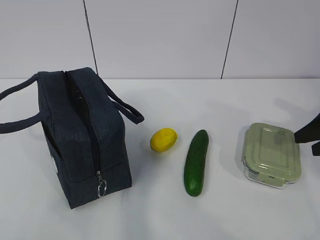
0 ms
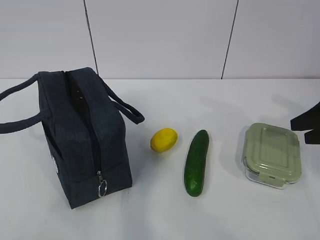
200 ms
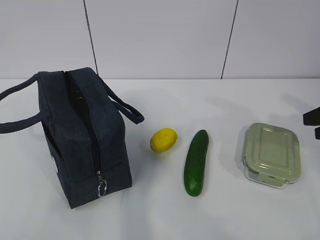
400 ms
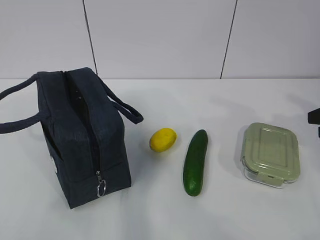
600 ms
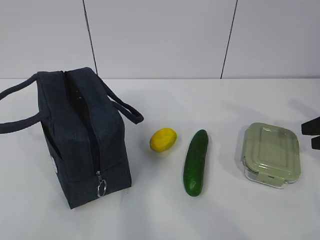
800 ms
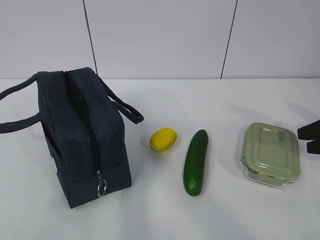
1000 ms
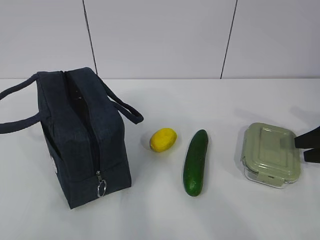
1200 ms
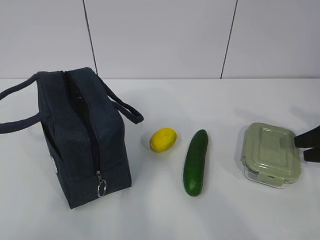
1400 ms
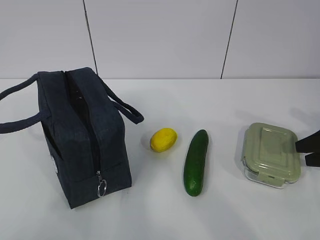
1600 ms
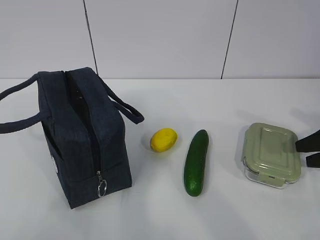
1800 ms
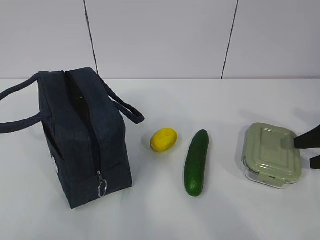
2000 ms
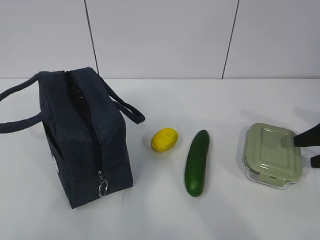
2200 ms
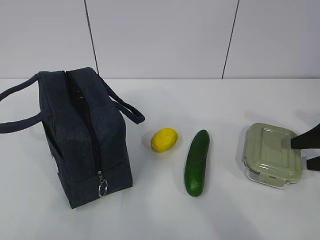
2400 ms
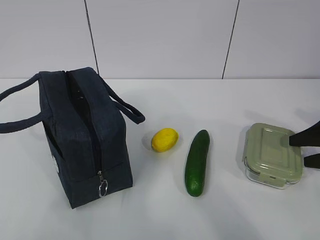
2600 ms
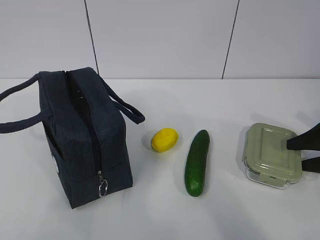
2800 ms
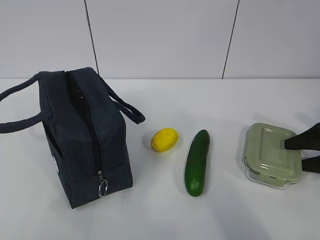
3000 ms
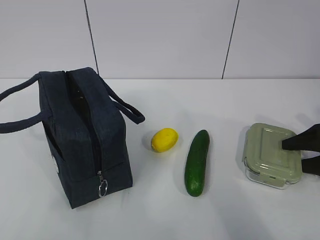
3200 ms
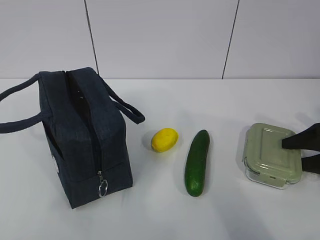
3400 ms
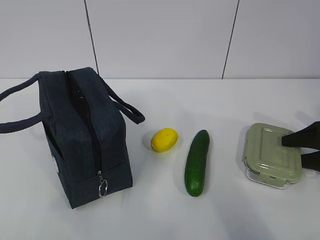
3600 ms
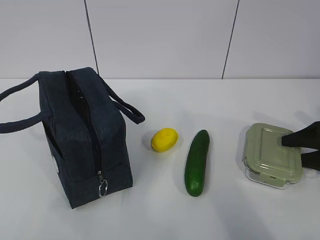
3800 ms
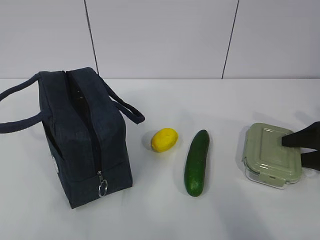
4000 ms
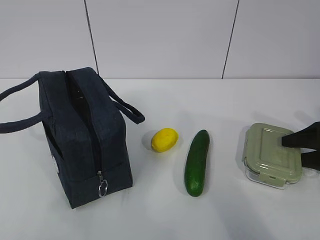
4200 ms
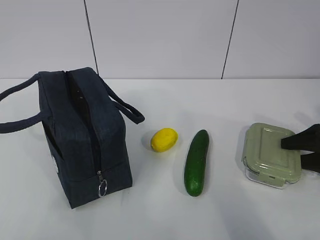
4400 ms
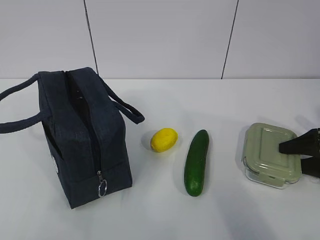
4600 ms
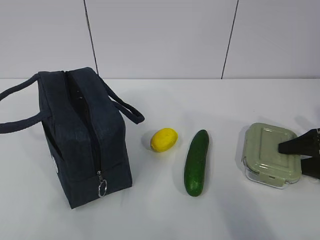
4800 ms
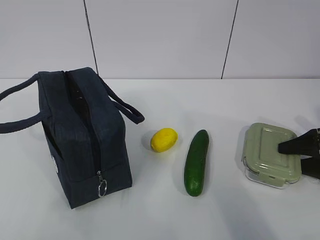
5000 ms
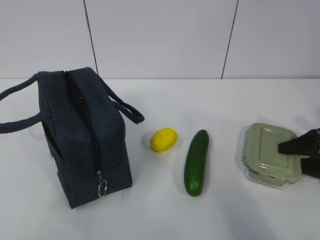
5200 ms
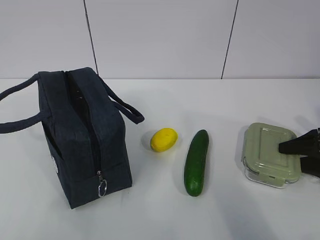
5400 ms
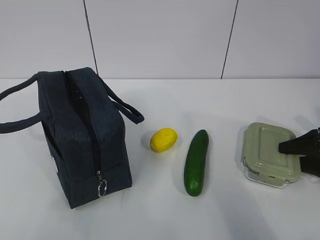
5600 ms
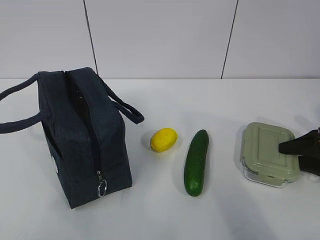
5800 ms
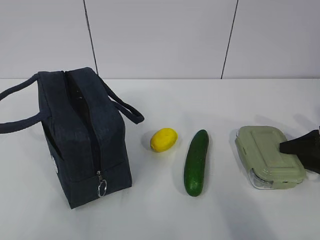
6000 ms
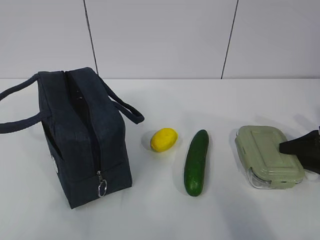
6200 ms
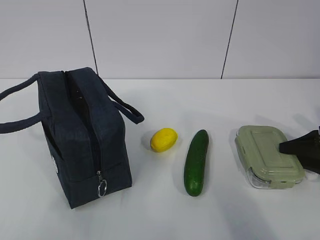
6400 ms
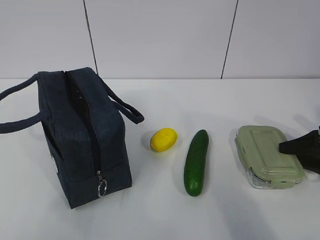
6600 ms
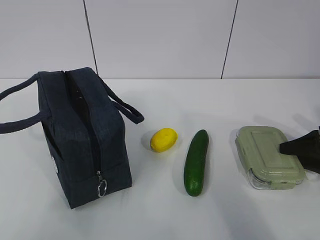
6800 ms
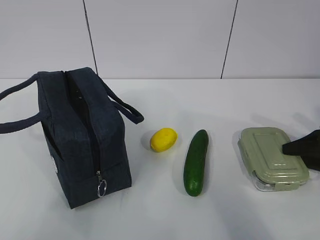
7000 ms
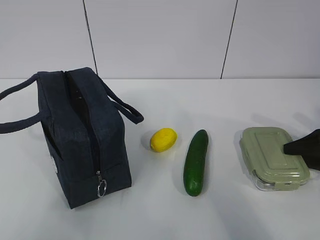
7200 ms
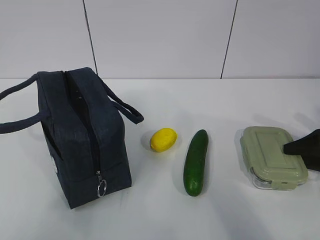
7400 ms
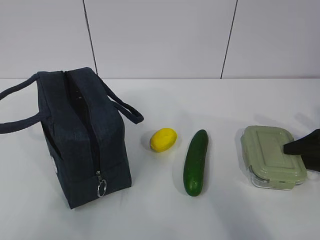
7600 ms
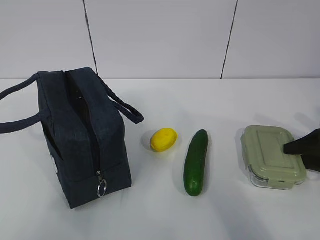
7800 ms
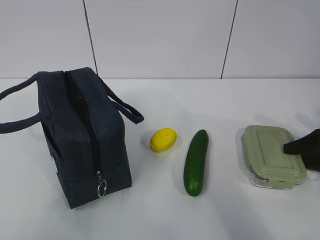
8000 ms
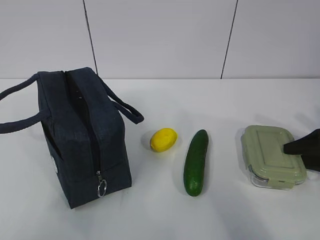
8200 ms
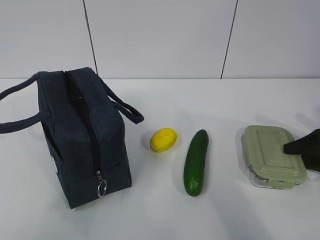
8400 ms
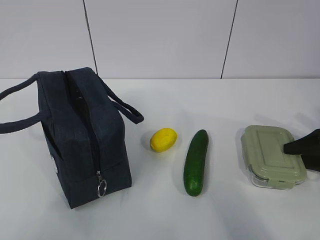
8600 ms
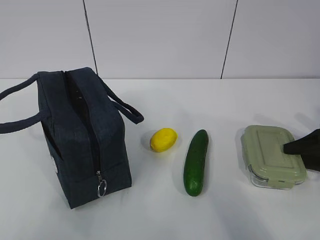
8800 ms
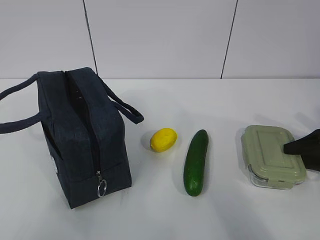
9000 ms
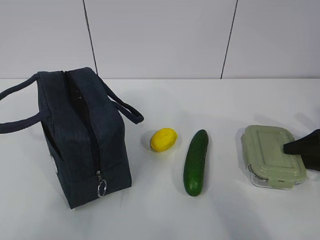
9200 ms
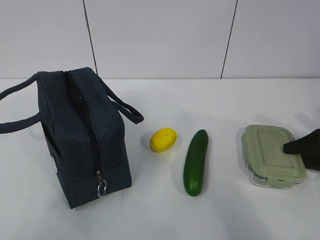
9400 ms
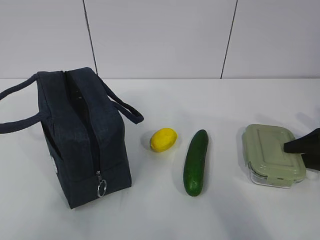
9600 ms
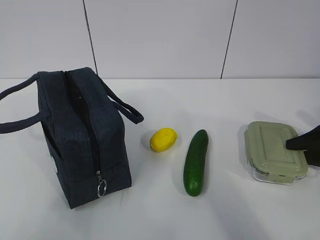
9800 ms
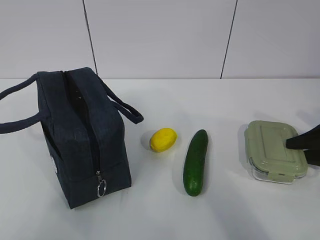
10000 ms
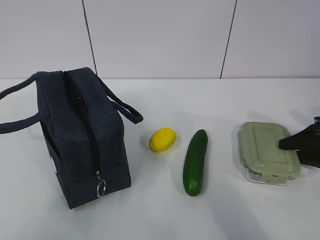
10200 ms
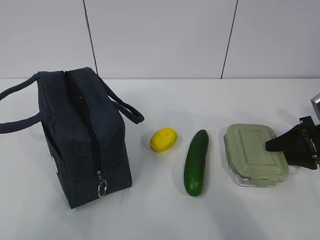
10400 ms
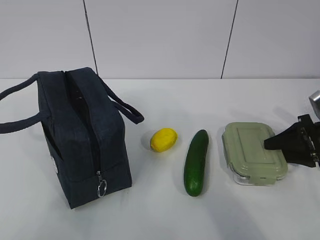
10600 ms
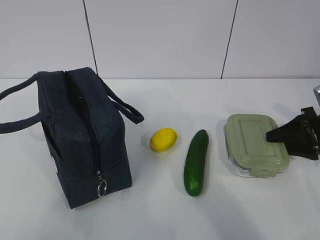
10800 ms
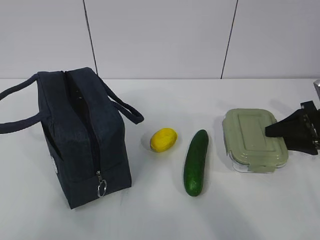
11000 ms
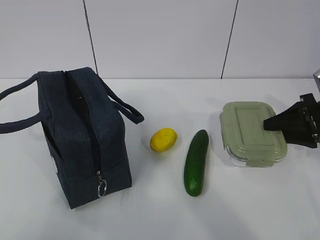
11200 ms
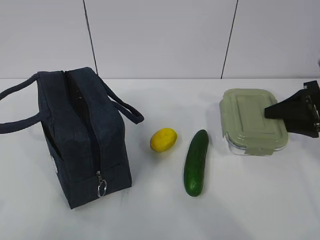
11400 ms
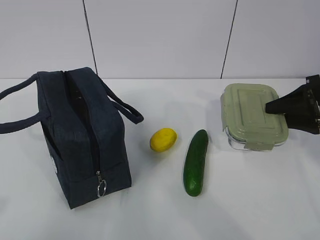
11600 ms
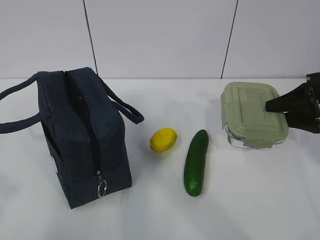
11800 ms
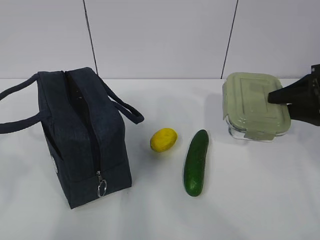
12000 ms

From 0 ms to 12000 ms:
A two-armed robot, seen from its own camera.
Step, from 0 ms to 7800 ms: Grab the lunch box with your right hand.
From 0 ms to 1600 ms: The right gripper is displaced downward by approximately 5 cm.
From 1600 ms to 3000 ms: The grippers move only a little.
From 4400 ms to 6000 ms: Both grippers stay put.
From 6000 ms to 7600 ms: The grippers make only small movements.
From 7600 ms to 9000 ms: Neither gripper changes place.
From 9000 ms to 10400 ms: The grippers stay close to where they were, moving slightly.
From 10400 ms to 12000 ms: The left gripper is displaced forward by roughly 5 cm. The right gripper goes about 10 cm upward.

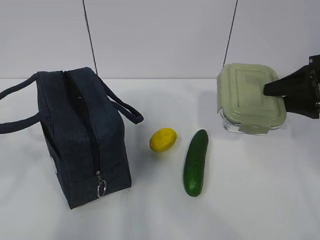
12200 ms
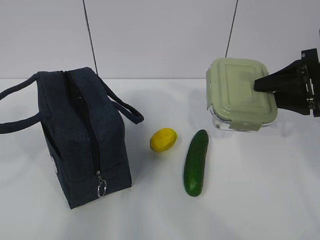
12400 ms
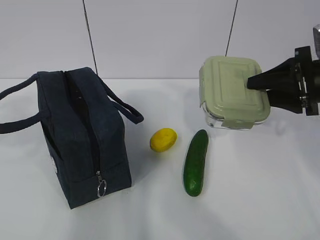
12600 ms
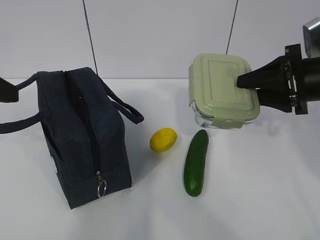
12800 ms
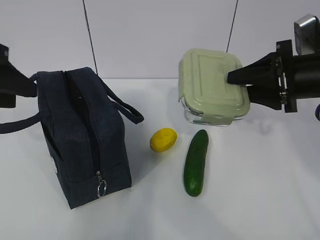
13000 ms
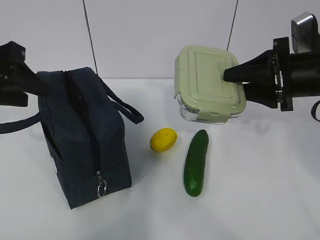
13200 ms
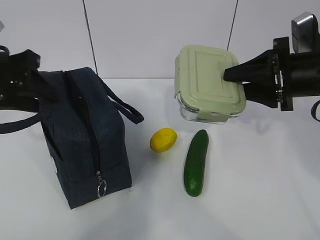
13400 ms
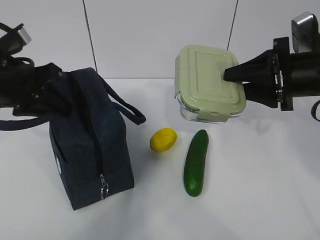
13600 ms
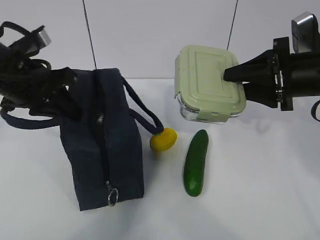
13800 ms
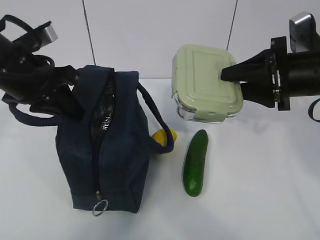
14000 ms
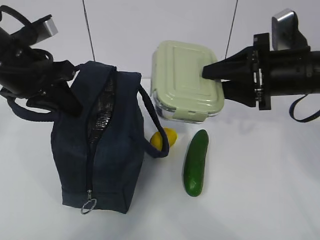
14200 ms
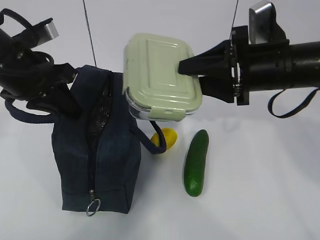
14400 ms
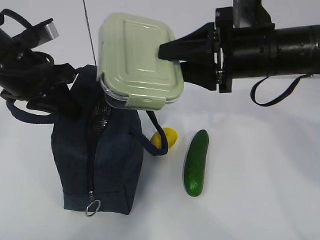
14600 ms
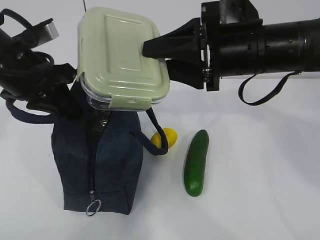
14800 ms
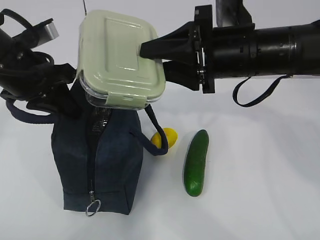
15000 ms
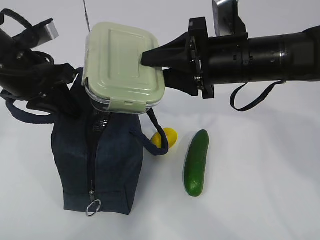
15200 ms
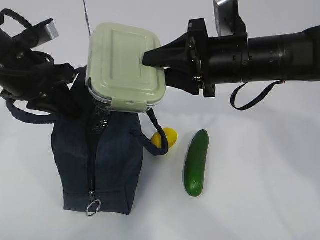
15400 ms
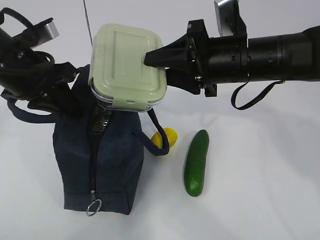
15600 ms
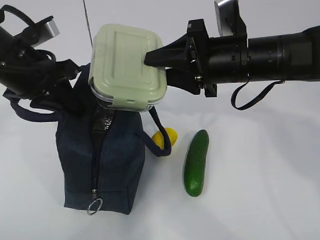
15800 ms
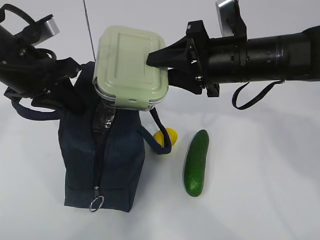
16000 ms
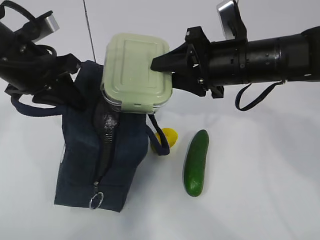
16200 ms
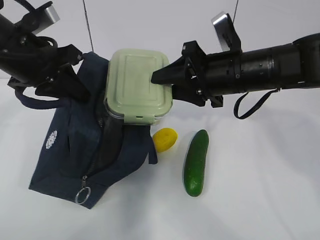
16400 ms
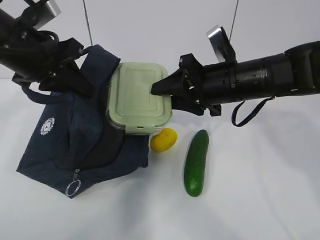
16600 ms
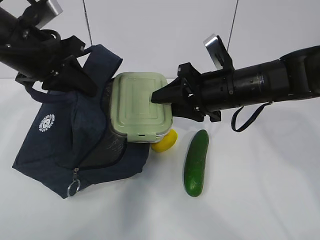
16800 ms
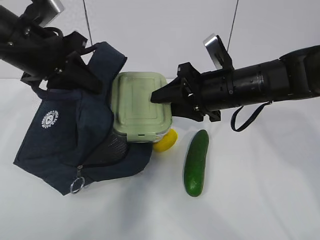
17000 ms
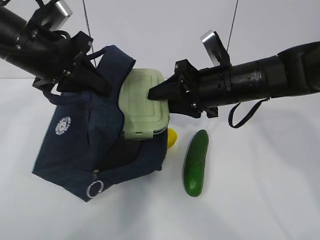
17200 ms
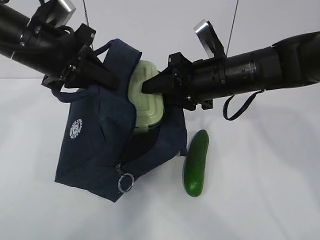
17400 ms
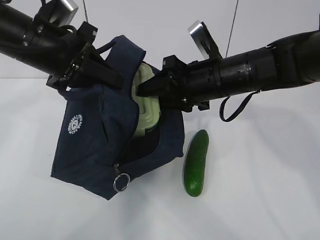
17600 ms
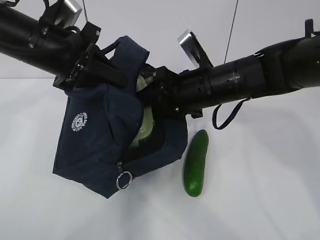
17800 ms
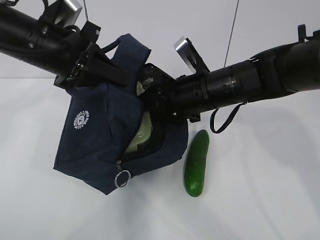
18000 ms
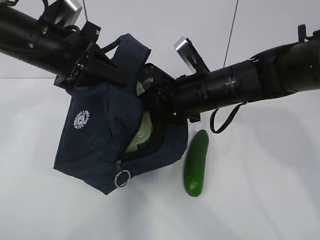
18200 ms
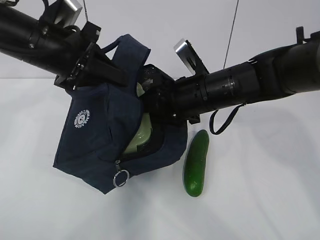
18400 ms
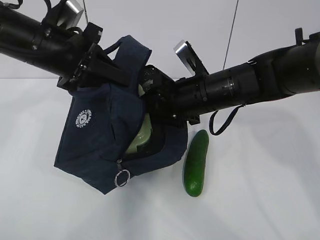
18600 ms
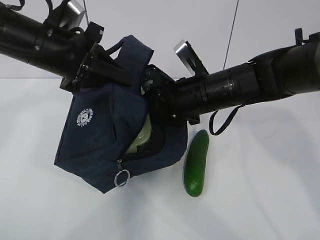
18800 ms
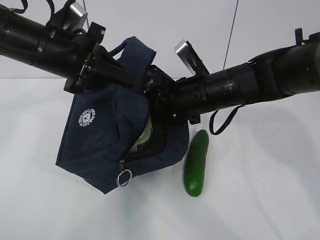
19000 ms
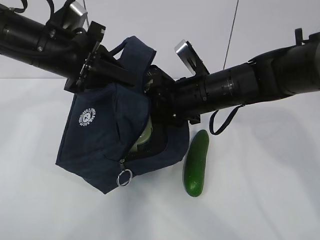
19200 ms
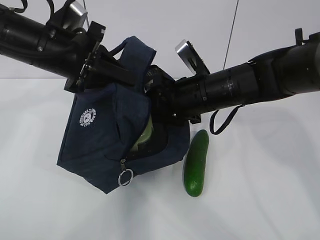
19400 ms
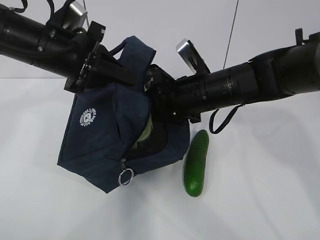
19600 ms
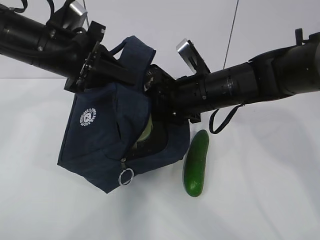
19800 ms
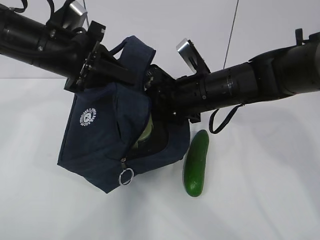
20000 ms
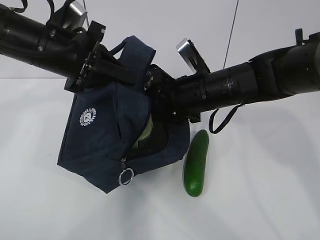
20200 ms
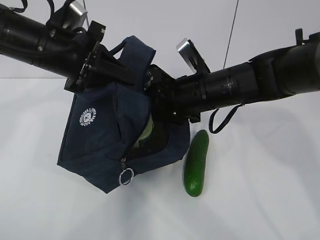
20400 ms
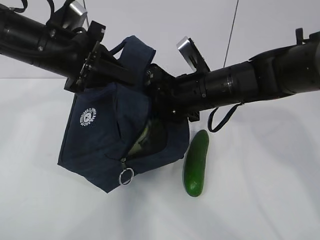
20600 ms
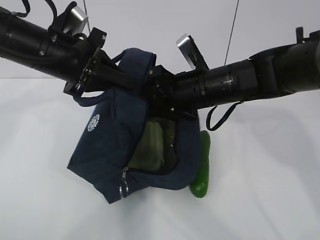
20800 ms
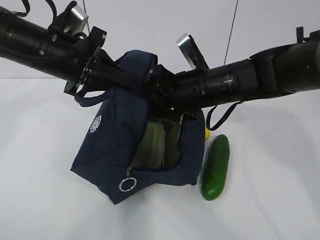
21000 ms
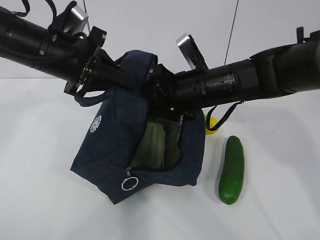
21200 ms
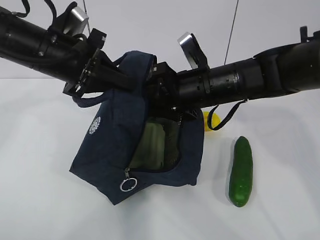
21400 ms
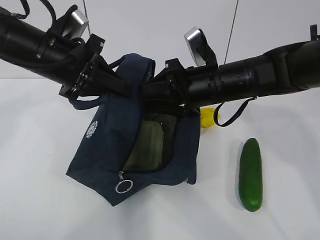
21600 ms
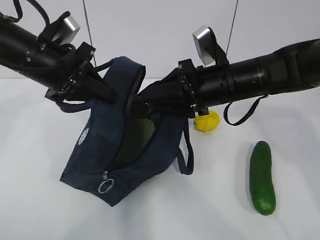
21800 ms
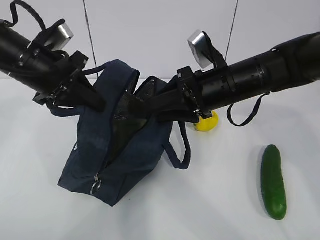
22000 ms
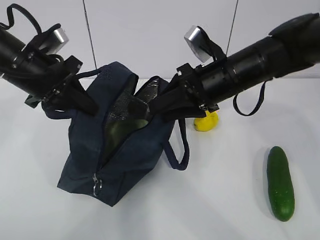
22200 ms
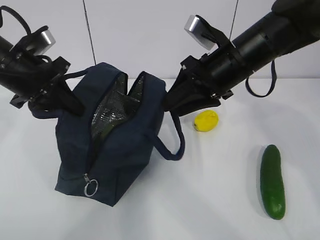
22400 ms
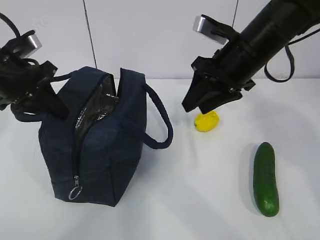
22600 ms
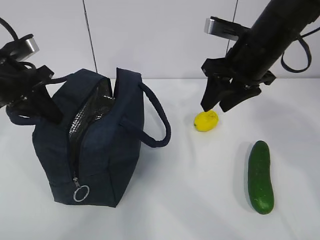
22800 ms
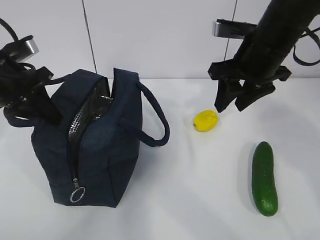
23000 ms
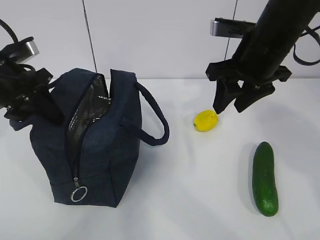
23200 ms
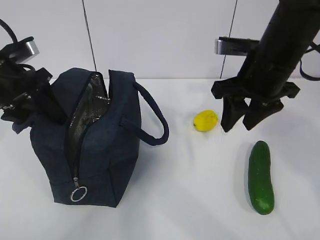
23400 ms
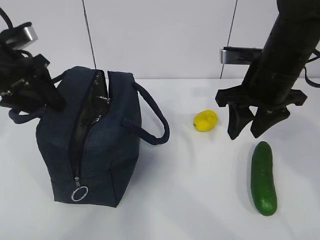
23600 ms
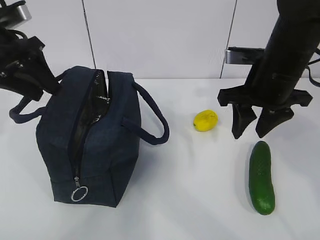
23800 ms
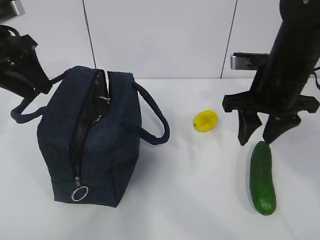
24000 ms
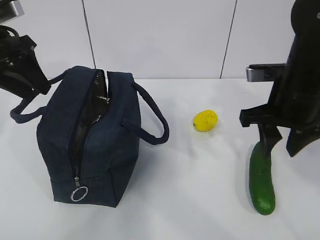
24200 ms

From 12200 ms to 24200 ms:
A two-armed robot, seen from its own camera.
Step, from 12400 ms to 16400 ms: Place it into the bag with your right hand.
Step, from 16600 ms to 21400 ms: Grab the cucumber with your right hand.
From 12200 ms to 13800 ms: The left gripper goes approximately 20 cm forward and to the right, and closes. The right gripper travels to the left by approximately 5 cm.
From 13800 ms to 15200 ms: The right gripper travels to the left by approximately 10 cm.
From 15200 ms to 16600 ms: The right gripper ends up some 5 cm from where it was.
From 18200 ms to 19800 ms: The grippers move only a little.
From 19800 ms to 21200 ms: Neither gripper changes place.
From 21200 ms to 22600 ms: The left gripper heads to the left, covering approximately 10 cm; the right gripper goes about 10 cm to the right and upward.
From 22600 ms to 24200 ms: The left gripper heads upward, covering approximately 5 cm, and opens; the right gripper shifts some 5 cm backward.
